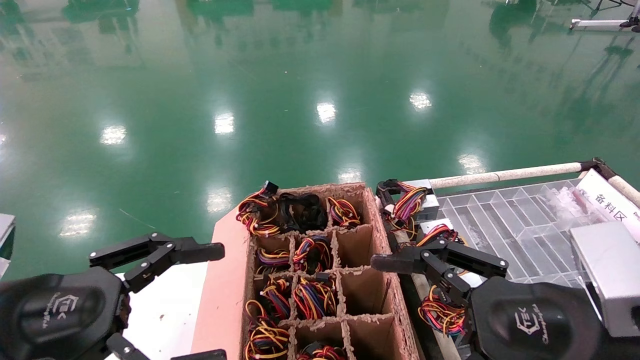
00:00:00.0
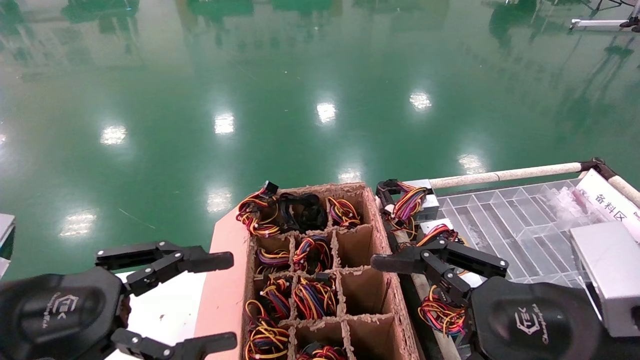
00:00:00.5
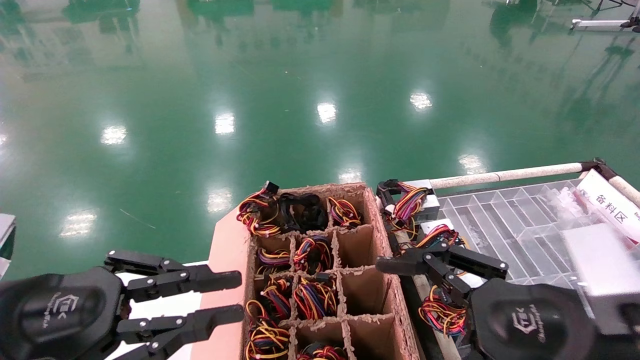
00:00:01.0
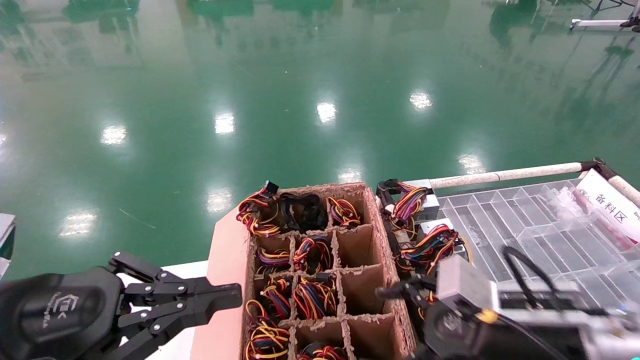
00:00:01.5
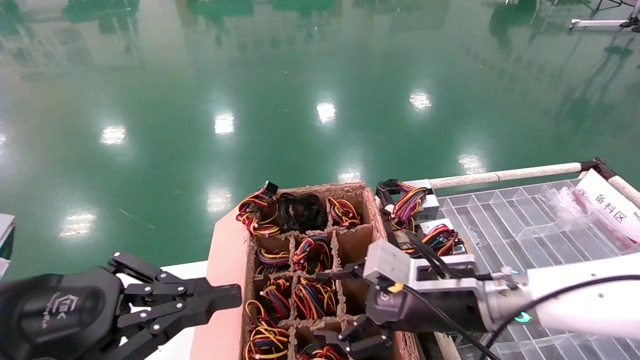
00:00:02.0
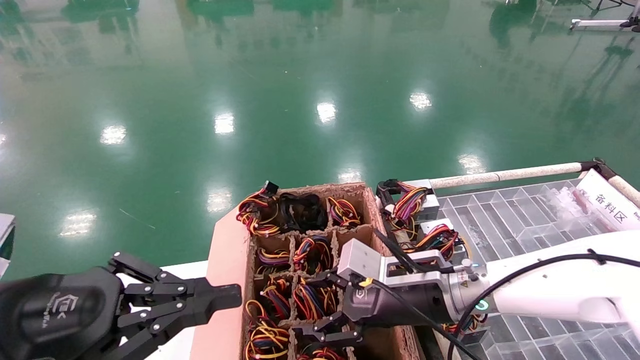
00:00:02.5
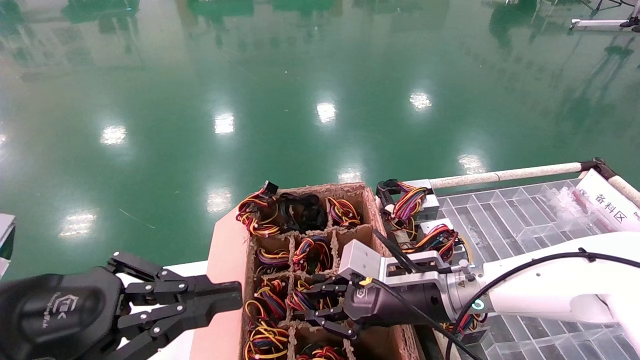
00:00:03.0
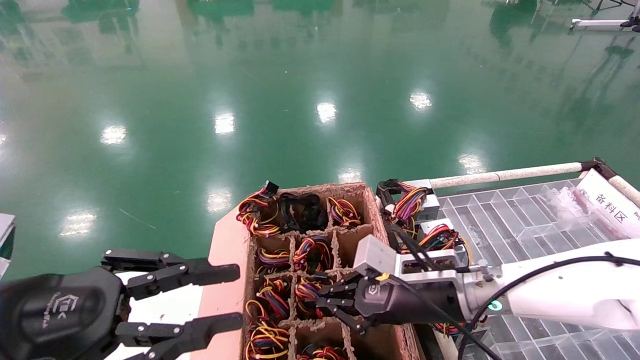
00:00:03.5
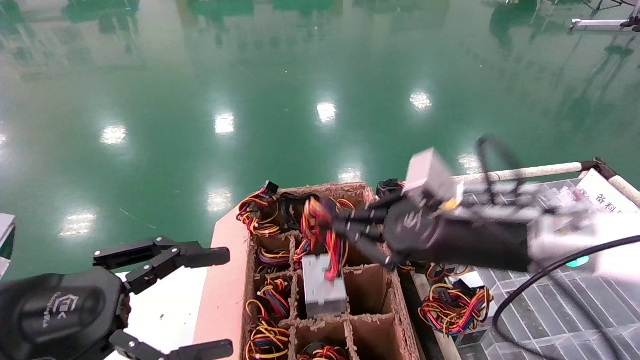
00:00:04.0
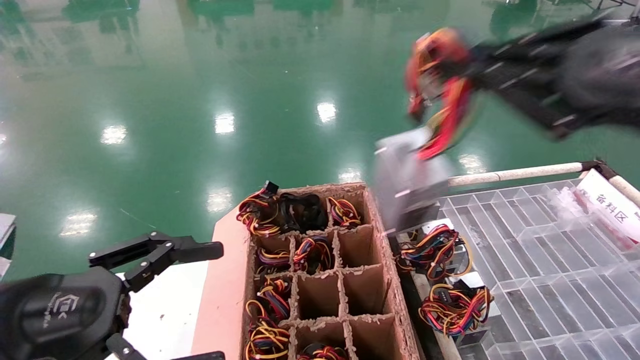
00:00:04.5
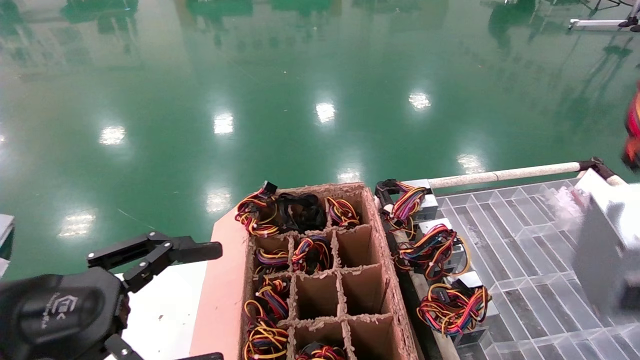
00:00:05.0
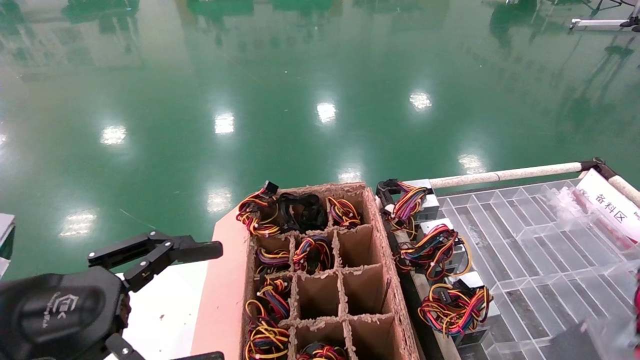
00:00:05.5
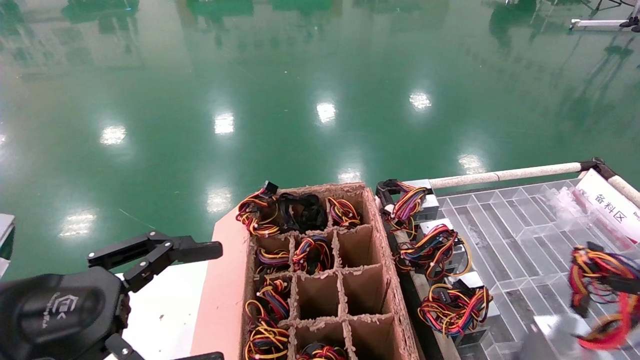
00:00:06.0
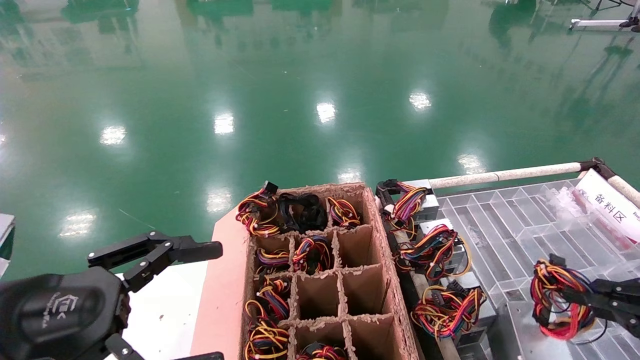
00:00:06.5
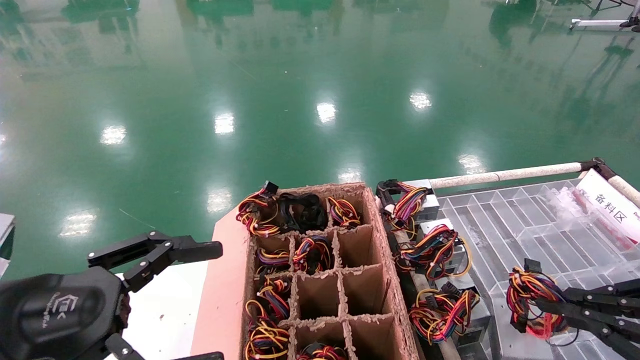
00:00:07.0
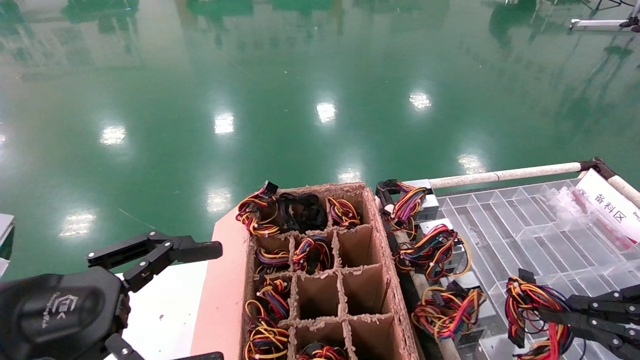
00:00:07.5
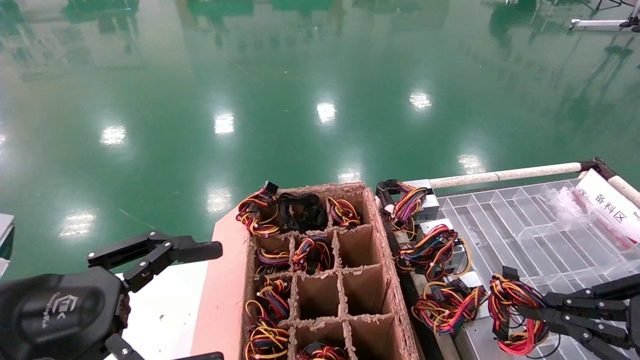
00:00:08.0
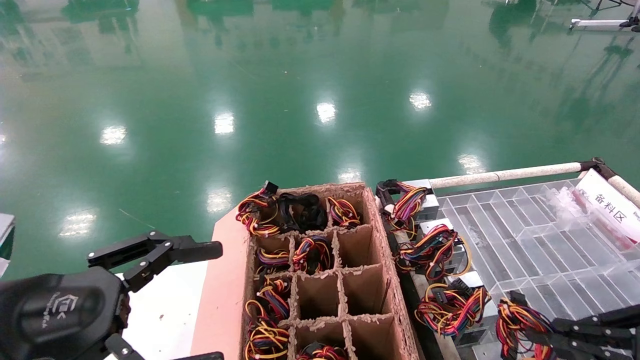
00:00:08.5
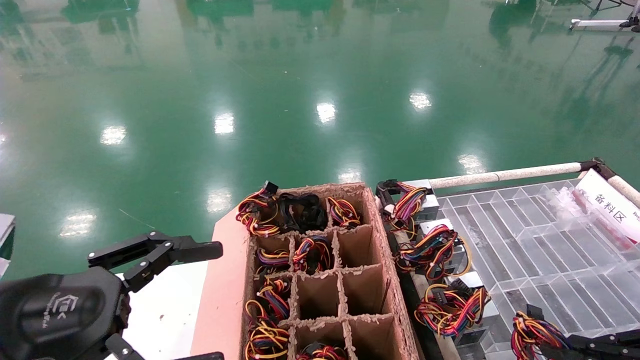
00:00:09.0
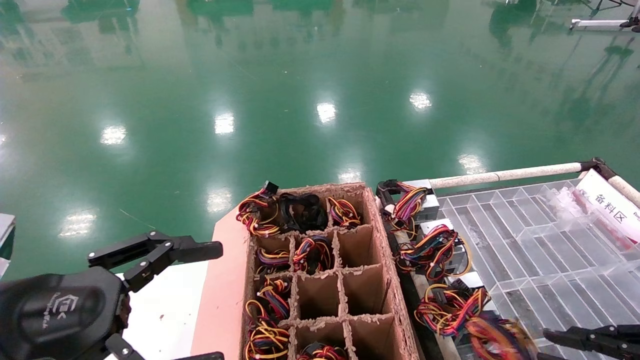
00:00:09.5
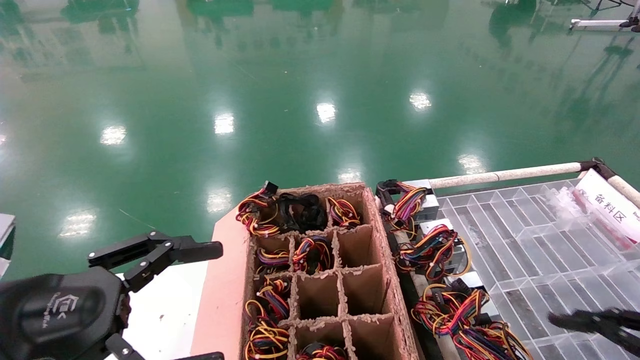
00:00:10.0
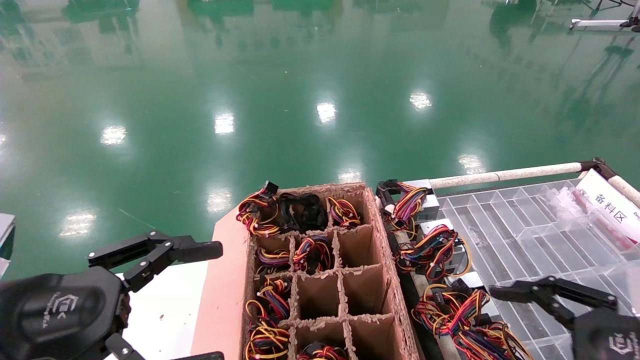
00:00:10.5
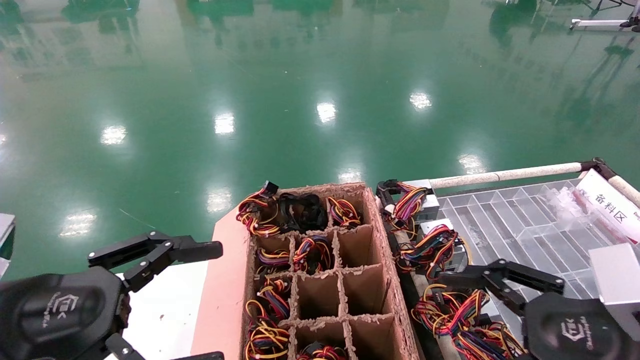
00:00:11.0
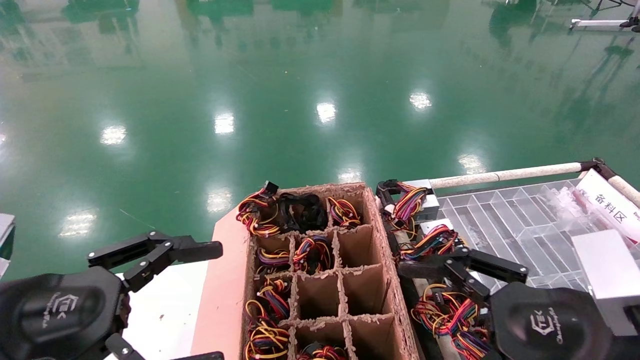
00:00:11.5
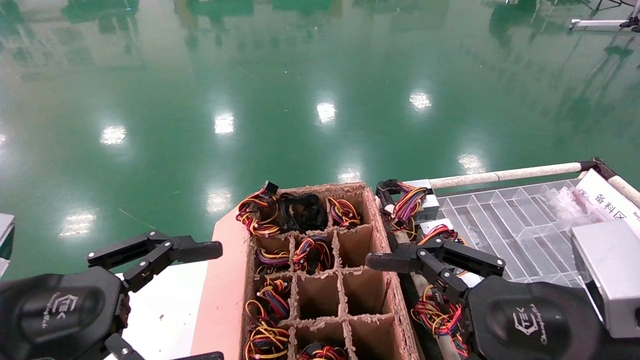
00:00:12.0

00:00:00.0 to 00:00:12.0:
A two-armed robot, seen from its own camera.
Step, 00:00:01.5 to 00:00:03.0: Grab and lift the power supply from the large box.
Step, 00:00:03.5 to 00:00:09.0: Place the power supply on the operating table.
00:00:00.0 to 00:00:02.0: The left gripper closes. Meanwhile the right gripper moves forward and to the left, approximately 15 cm.
00:00:02.0 to 00:00:04.0: The left gripper opens up, while the right gripper is displaced upward by roughly 10 cm, and closes its fingers.
00:00:04.0 to 00:00:06.0: The right gripper heads to the right and backward, covering roughly 30 cm.
00:00:06.0 to 00:00:08.0: The right gripper shifts by approximately 5 cm.
00:00:08.0 to 00:00:10.0: The right gripper opens its fingers.
00:00:10.0 to 00:00:12.0: The right gripper heads to the left, covering some 15 cm, and opens its fingers.

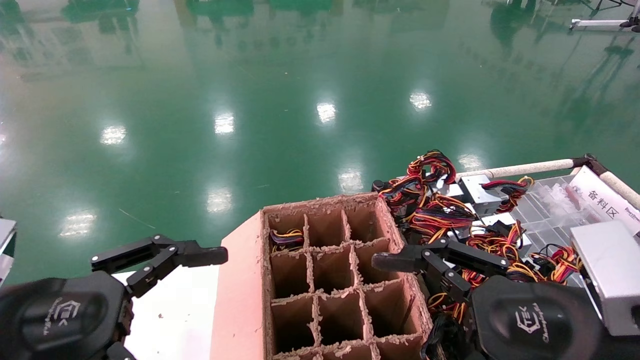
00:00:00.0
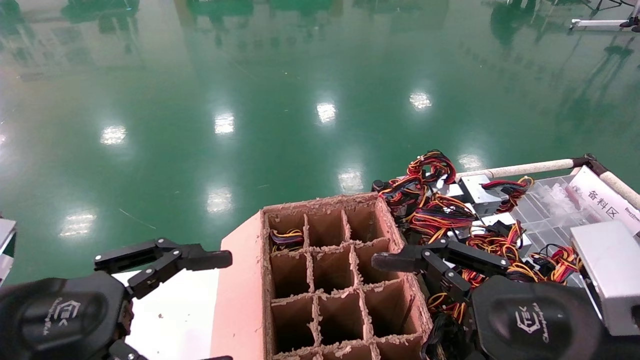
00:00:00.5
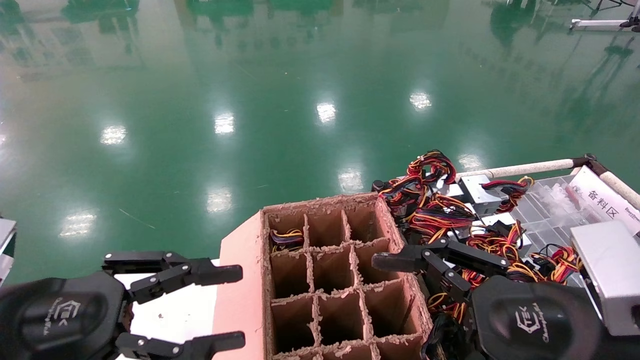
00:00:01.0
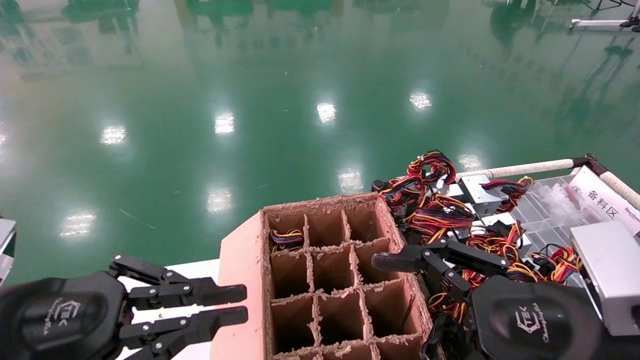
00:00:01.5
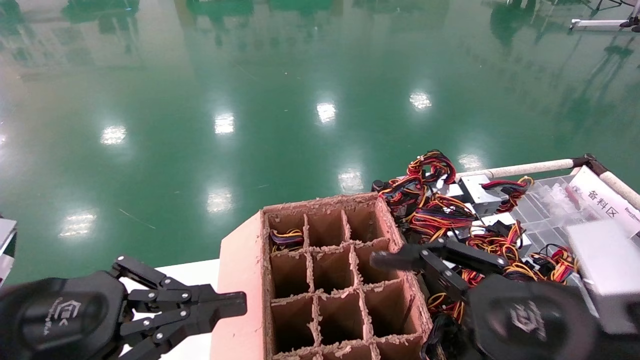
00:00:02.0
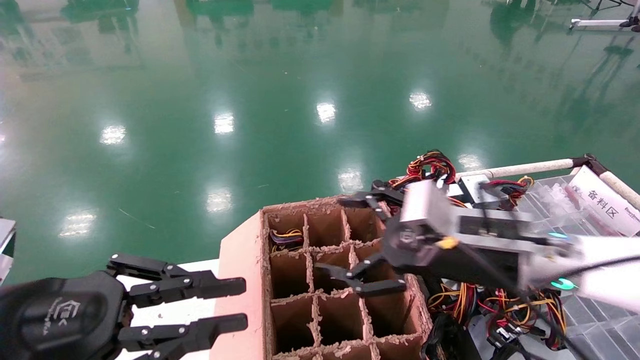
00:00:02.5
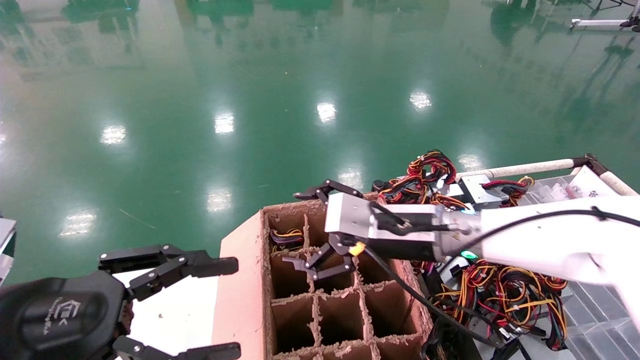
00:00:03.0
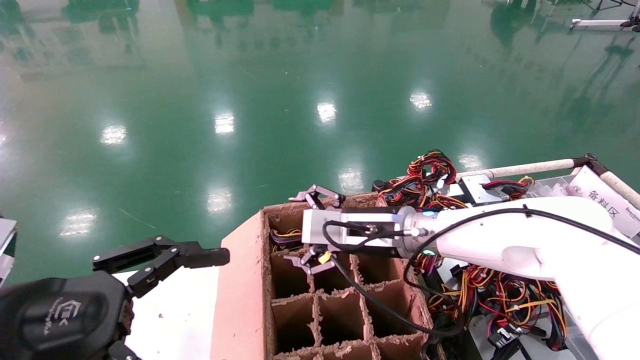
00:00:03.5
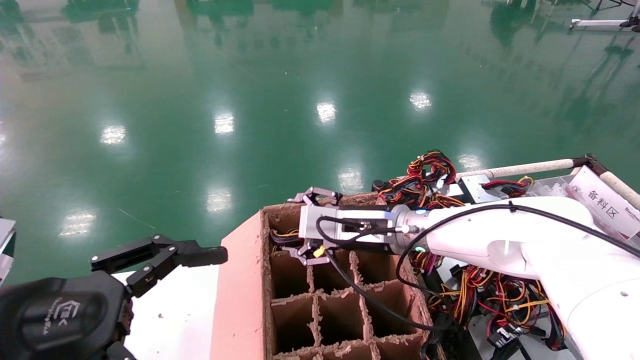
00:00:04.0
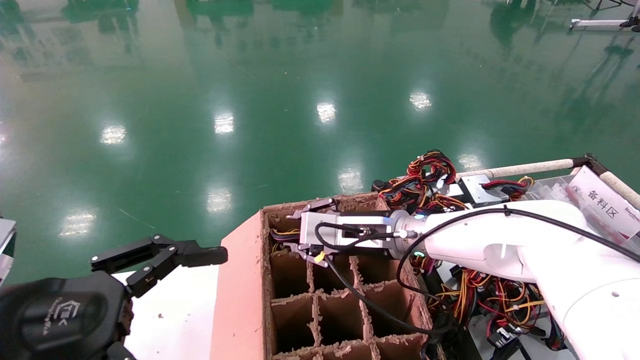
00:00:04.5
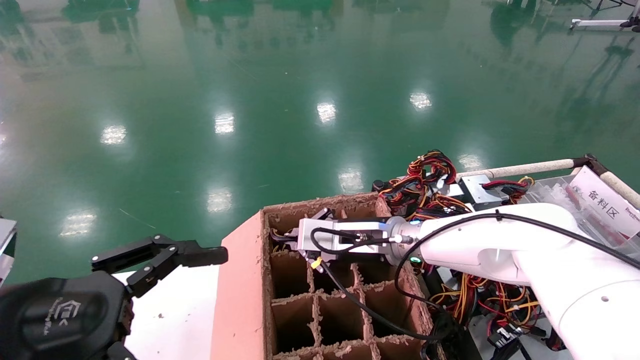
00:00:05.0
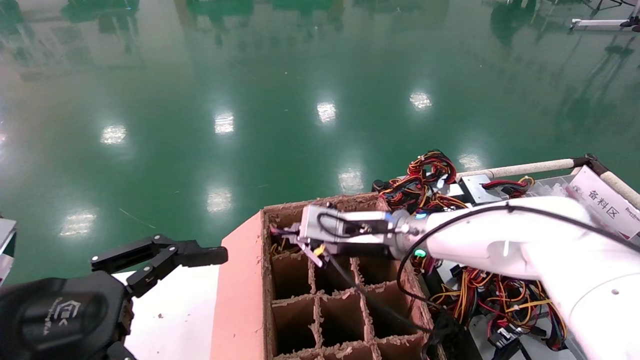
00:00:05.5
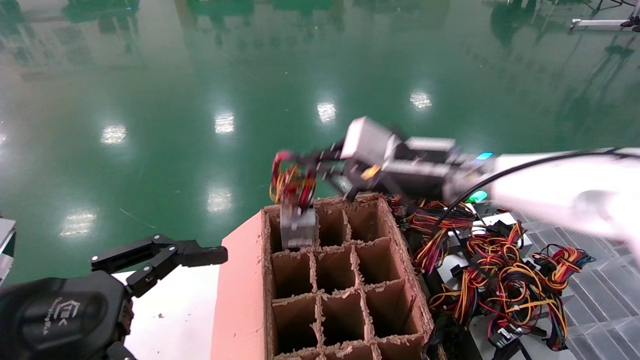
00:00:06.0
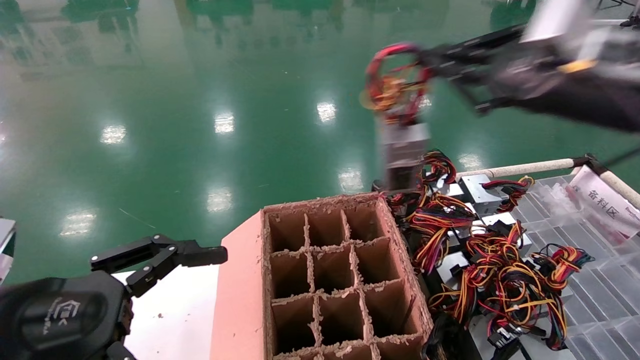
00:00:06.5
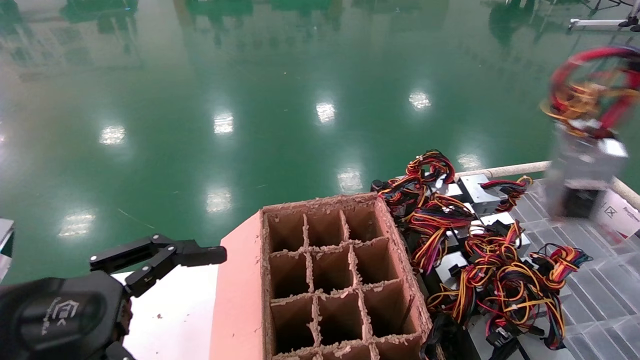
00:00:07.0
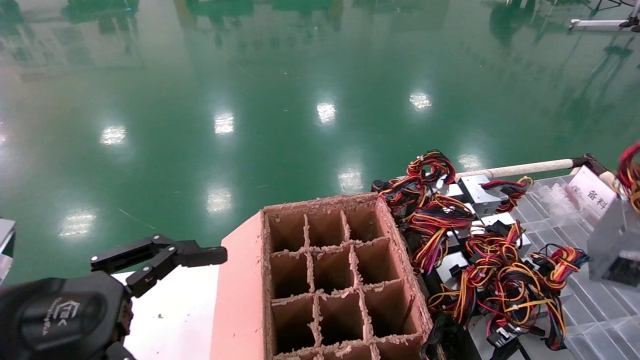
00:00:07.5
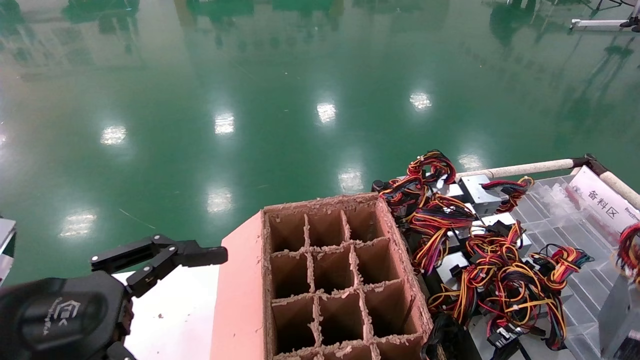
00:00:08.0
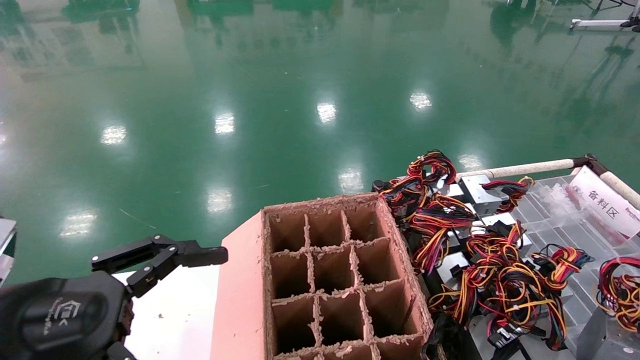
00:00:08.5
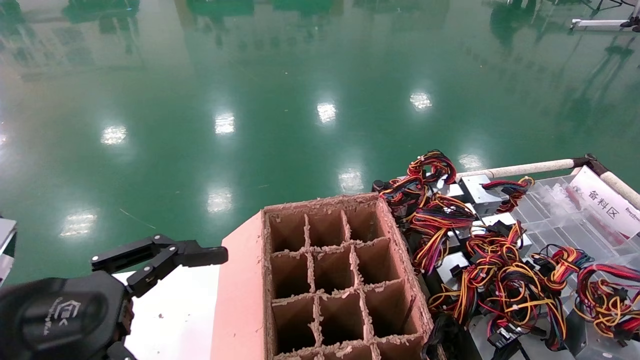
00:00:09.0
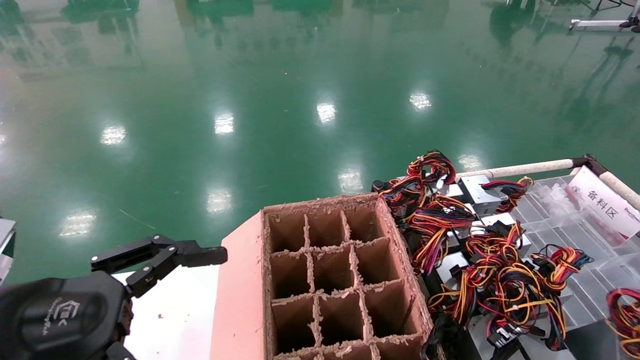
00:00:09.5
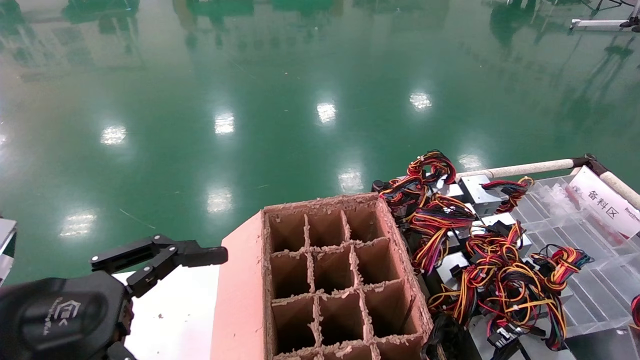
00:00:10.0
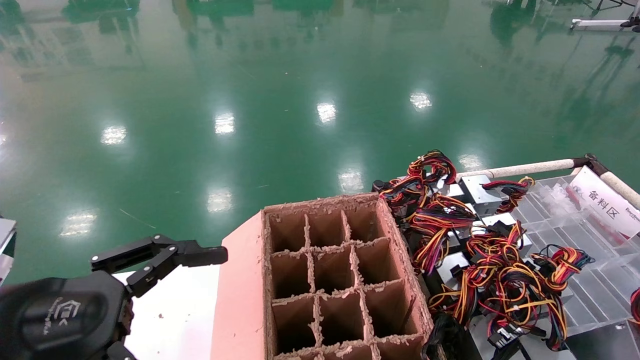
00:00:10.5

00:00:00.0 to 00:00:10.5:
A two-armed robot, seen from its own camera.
Step, 00:00:02.0 to 00:00:05.0: Grab and lift the power supply from the large box.
00:00:00.0 to 00:00:02.0: The left gripper closes its fingers.
00:00:02.0 to 00:00:04.0: The left gripper opens, while the right gripper moves forward and to the left, some 25 cm.
00:00:04.0 to 00:00:06.5: The right gripper heads to the right, upward and backward, covering some 30 cm, and closes up.
00:00:06.5 to 00:00:08.5: The right gripper travels to the right, downward and backward by approximately 35 cm.
00:00:08.5 to 00:00:10.5: The grippers move only a little.
